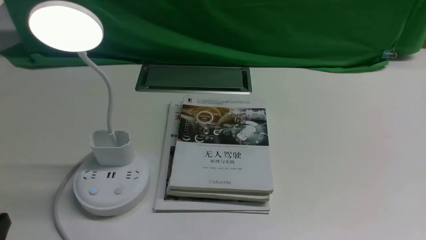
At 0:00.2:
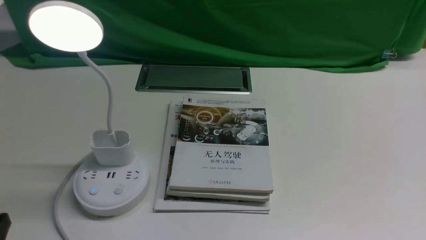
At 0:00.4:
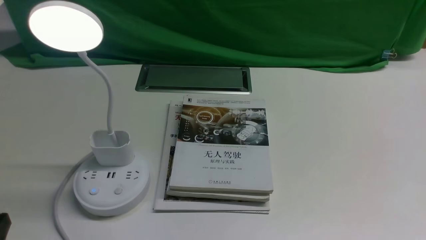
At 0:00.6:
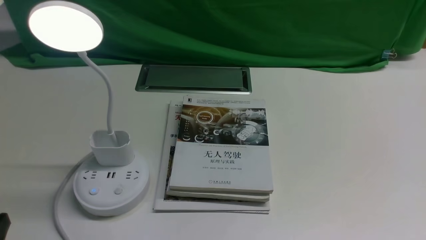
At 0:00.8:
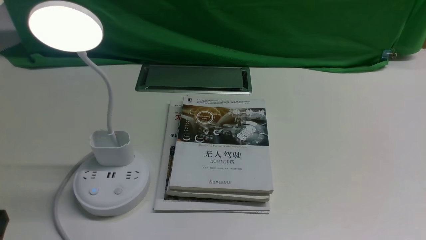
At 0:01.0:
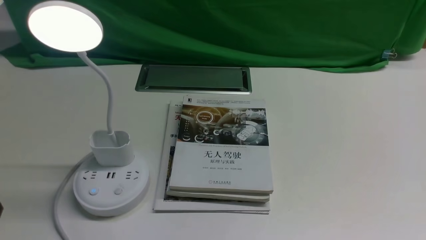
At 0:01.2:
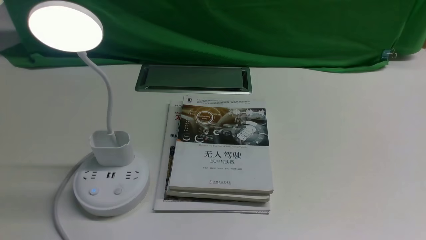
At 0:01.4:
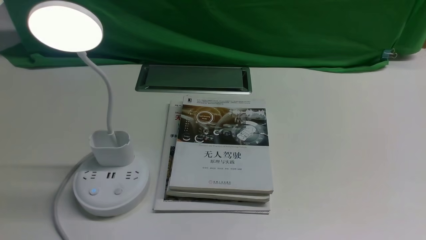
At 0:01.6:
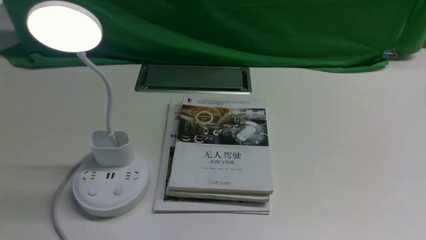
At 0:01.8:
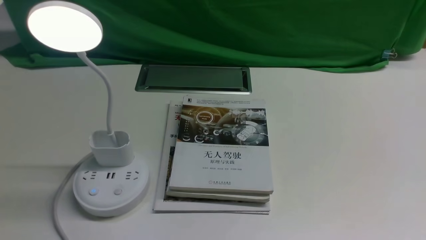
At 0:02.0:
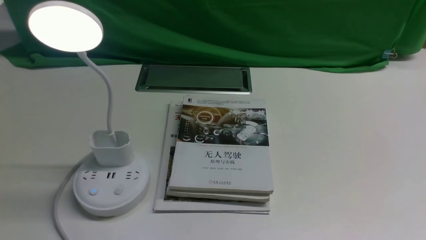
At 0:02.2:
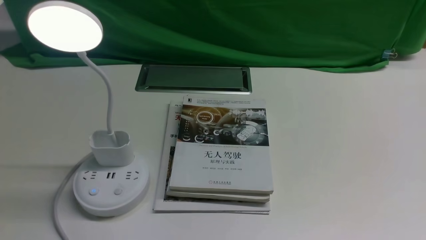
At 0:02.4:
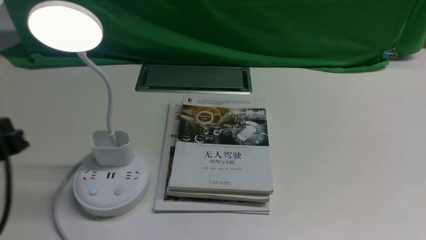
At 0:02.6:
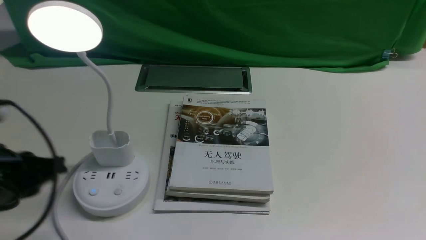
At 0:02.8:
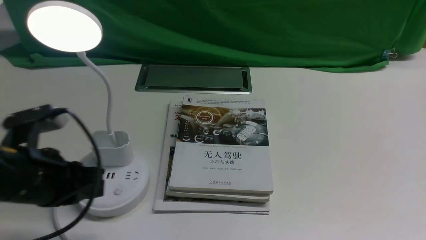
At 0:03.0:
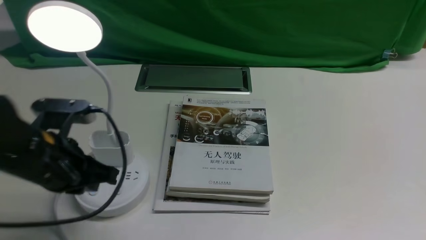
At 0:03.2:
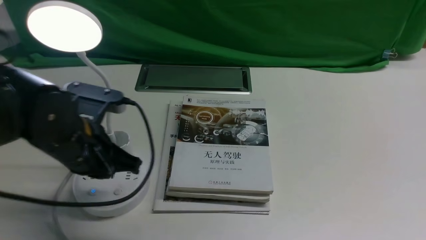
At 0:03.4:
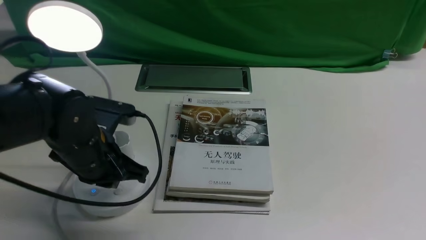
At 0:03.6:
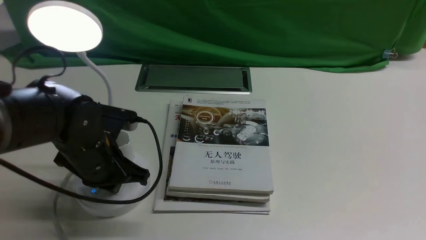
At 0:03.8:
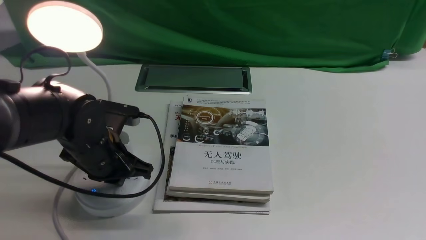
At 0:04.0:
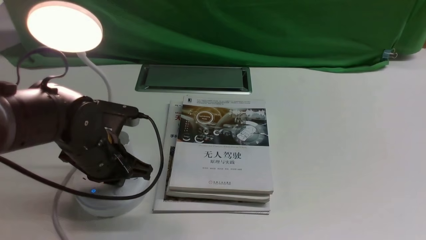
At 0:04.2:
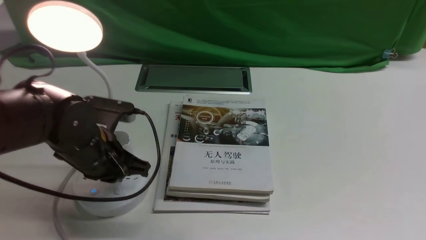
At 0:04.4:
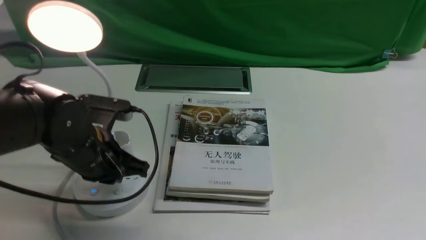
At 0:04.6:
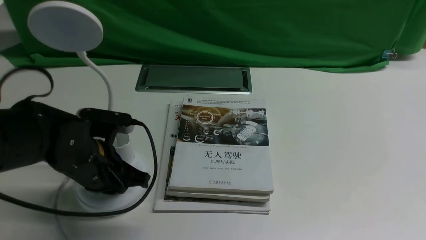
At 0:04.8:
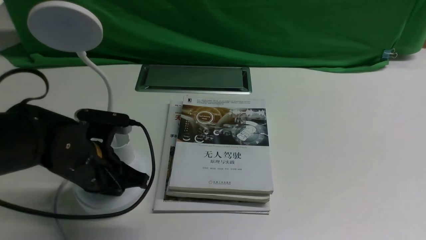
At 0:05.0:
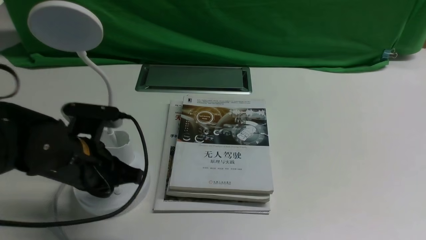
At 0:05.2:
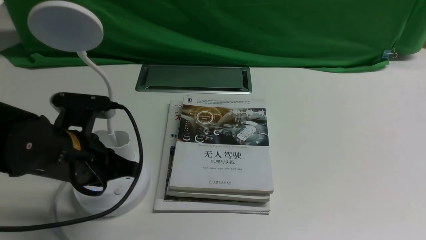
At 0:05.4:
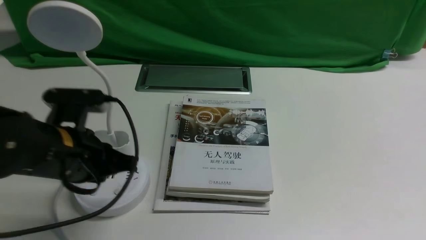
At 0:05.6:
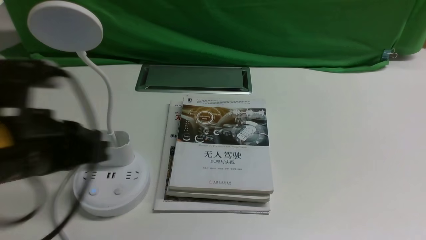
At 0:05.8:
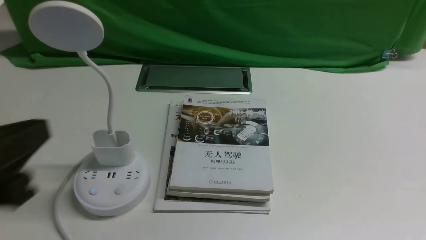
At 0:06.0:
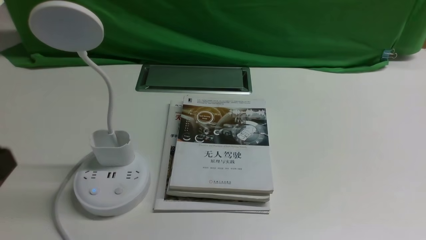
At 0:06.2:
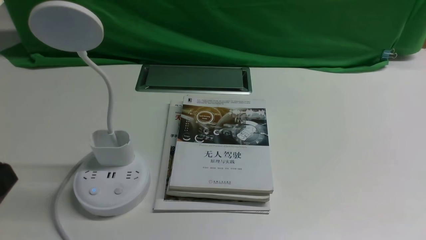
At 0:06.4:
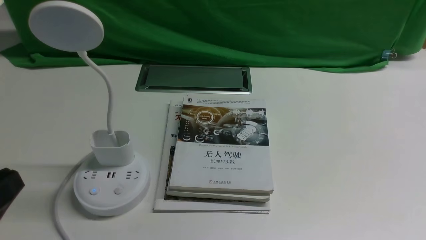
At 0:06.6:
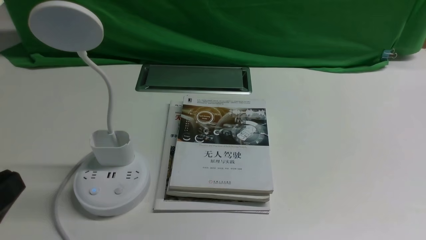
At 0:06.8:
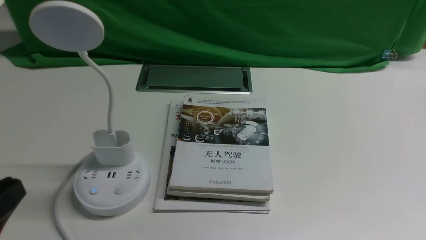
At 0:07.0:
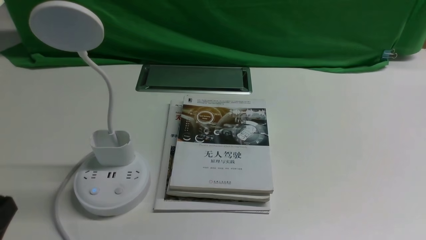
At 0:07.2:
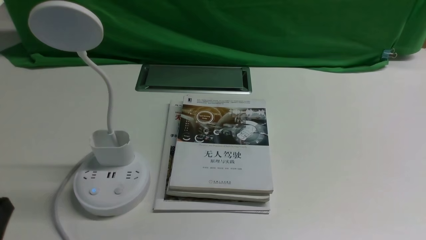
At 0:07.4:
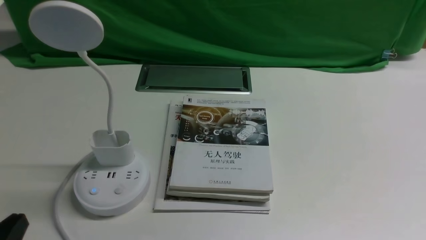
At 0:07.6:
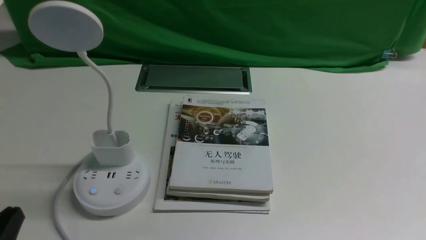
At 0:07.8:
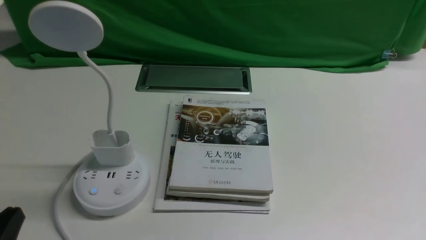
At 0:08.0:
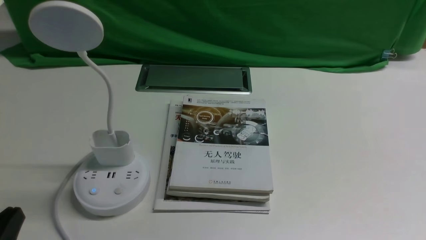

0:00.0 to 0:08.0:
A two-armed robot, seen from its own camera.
Task of the whole recording: turn off the desk lamp on the white desktop by hand.
Step, 0:00.0 to 0:05.0: use the left arm to press the button switch on the lamp holder.
0:00.0 to 0:01.6: The left gripper moves upward, about 5 cm.
0:01.6 to 0:03.2: The left gripper heads forward and to the right, covering some 20 cm.
0:03.2 to 0:04.8: There are only small adjustments of the grippers.
0:04.8 to 0:06.4: The left gripper goes approximately 25 cm backward and upward, and opens.
0:06.4 to 0:08.0: The left gripper heads downward, covering some 10 cm.
